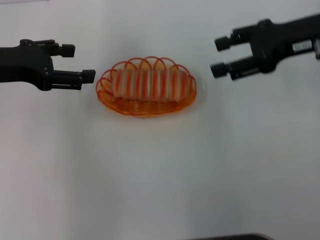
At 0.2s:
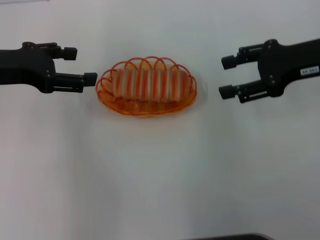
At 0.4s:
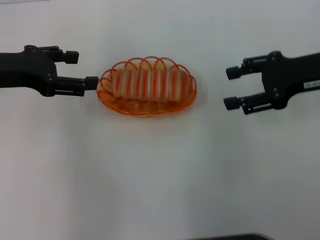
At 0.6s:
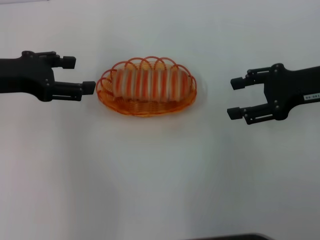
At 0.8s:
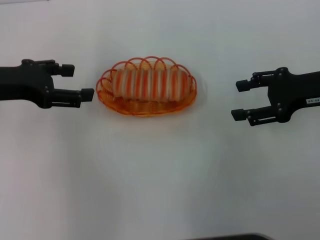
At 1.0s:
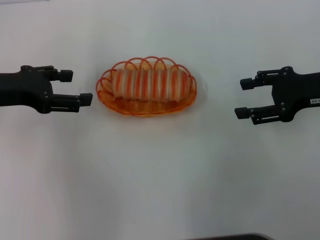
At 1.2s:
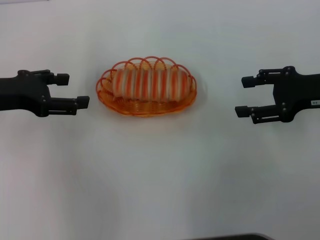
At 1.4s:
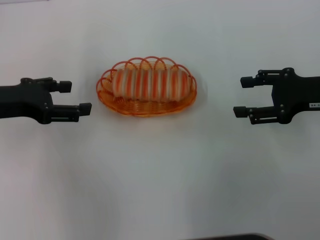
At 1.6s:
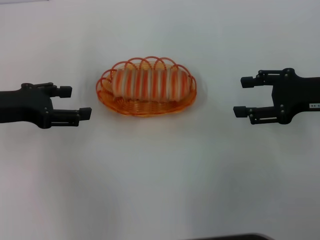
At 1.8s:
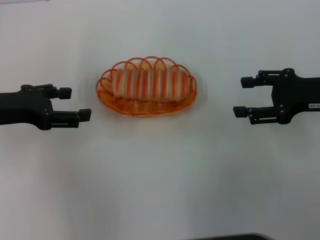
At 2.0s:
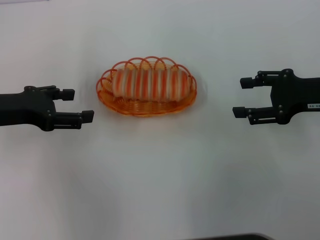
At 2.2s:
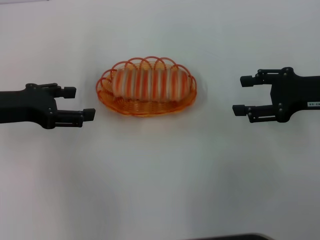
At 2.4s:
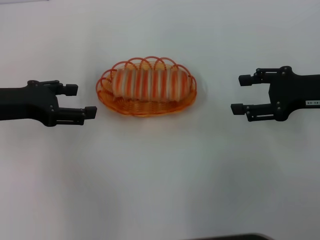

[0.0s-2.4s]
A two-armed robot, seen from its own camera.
0.0s to 1.2s: The right gripper goes roughly 10 cm downward and backward.
1.2s to 2.4s: The grippers make only small movements.

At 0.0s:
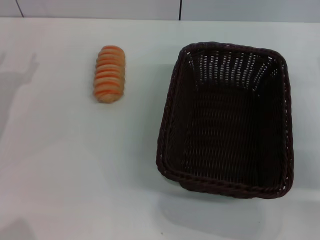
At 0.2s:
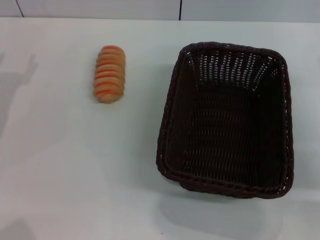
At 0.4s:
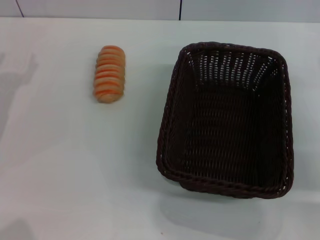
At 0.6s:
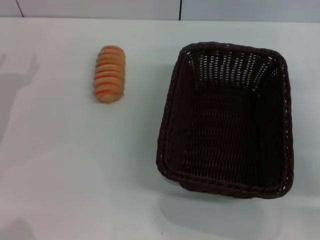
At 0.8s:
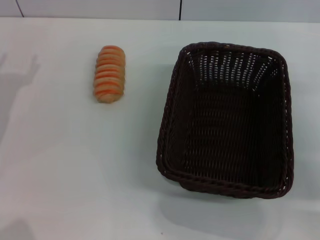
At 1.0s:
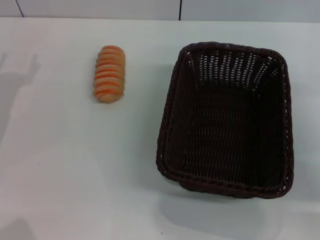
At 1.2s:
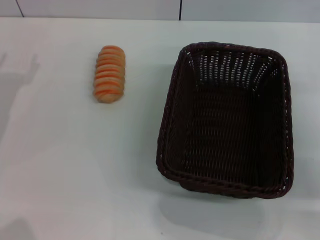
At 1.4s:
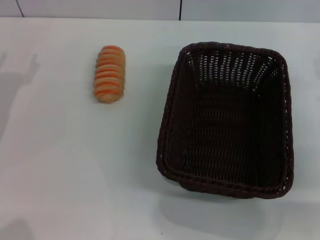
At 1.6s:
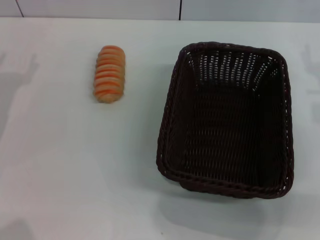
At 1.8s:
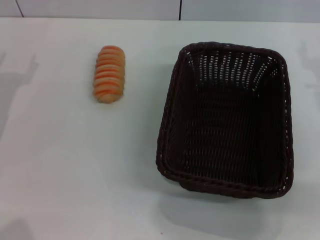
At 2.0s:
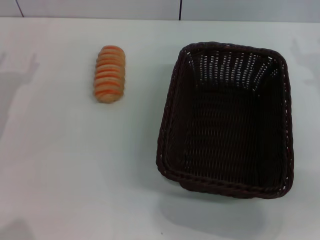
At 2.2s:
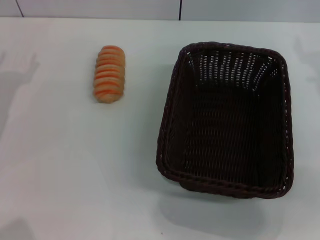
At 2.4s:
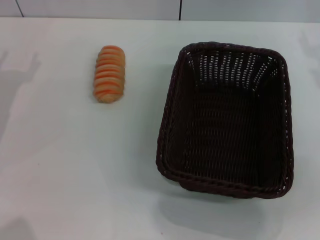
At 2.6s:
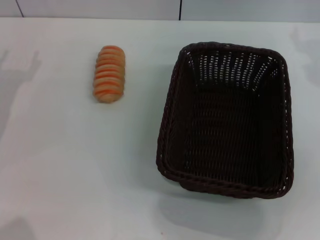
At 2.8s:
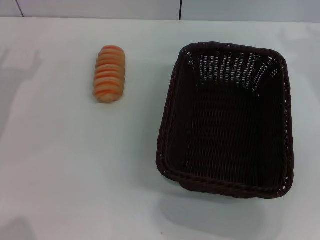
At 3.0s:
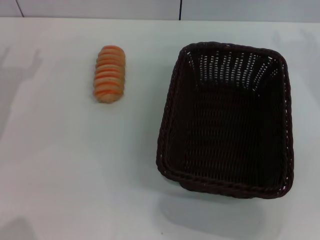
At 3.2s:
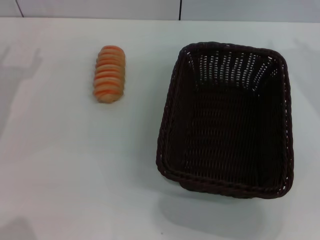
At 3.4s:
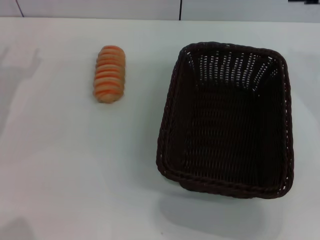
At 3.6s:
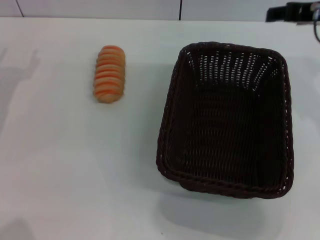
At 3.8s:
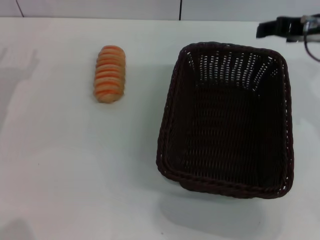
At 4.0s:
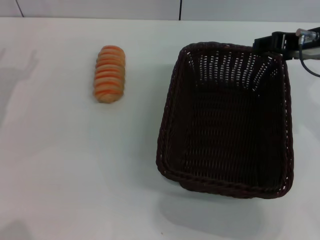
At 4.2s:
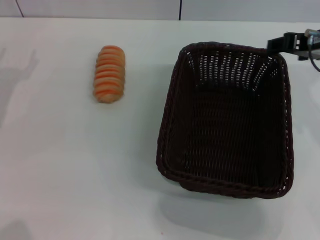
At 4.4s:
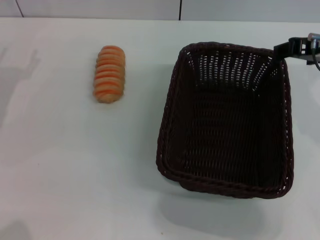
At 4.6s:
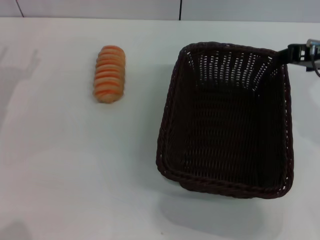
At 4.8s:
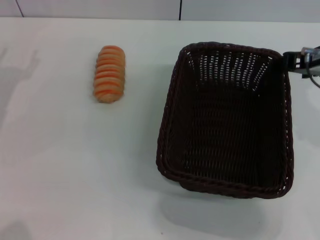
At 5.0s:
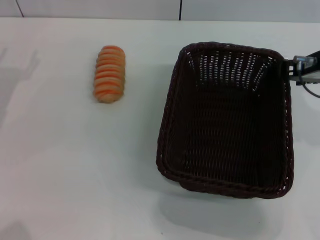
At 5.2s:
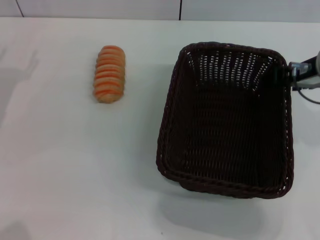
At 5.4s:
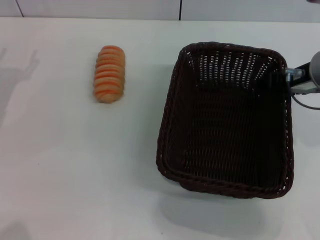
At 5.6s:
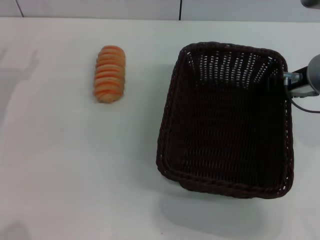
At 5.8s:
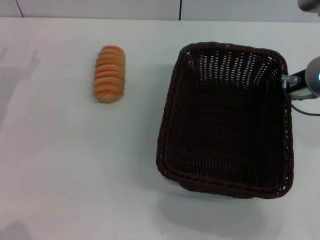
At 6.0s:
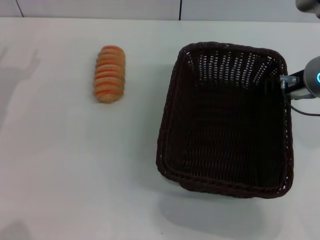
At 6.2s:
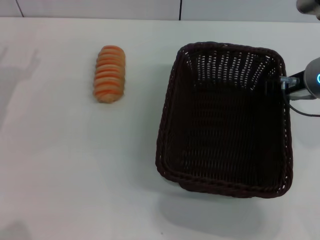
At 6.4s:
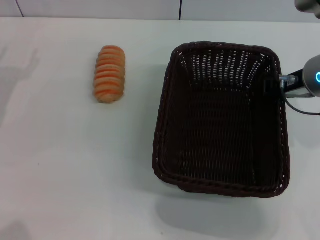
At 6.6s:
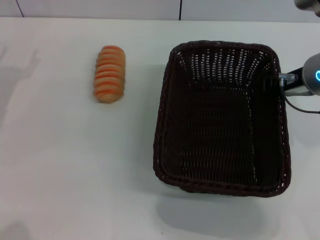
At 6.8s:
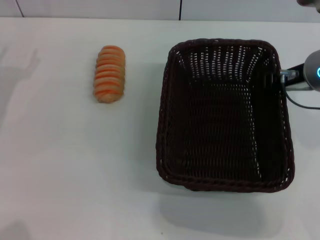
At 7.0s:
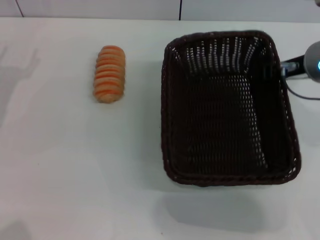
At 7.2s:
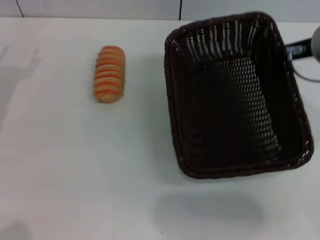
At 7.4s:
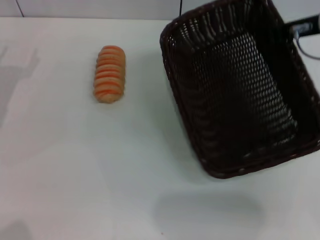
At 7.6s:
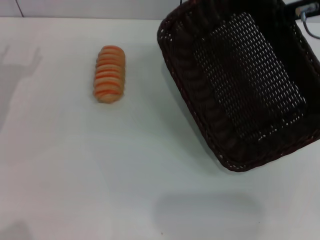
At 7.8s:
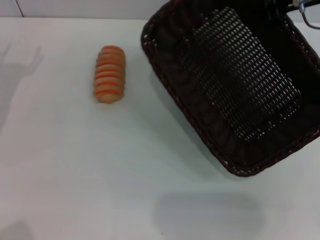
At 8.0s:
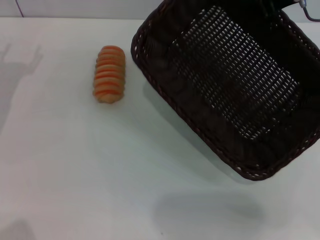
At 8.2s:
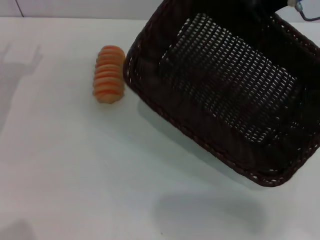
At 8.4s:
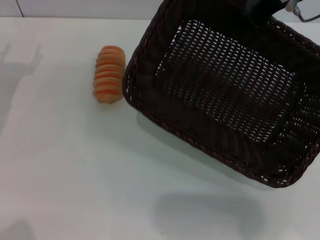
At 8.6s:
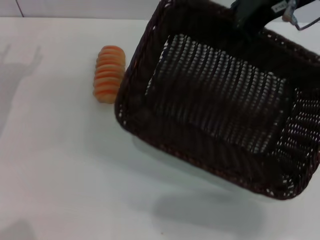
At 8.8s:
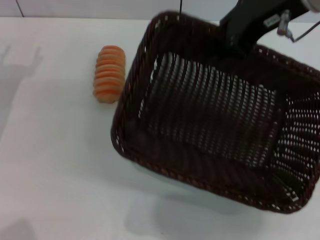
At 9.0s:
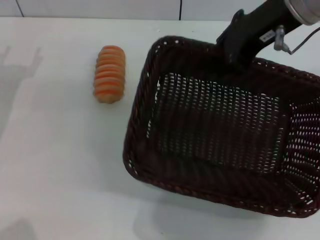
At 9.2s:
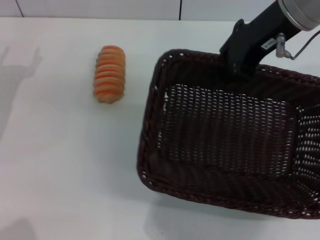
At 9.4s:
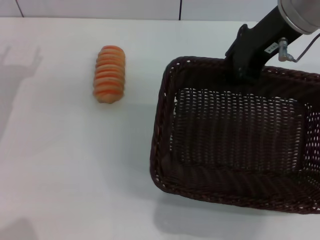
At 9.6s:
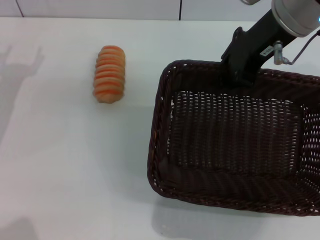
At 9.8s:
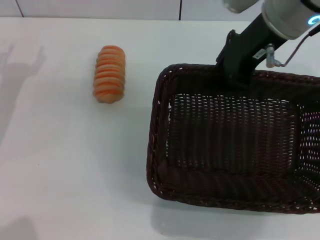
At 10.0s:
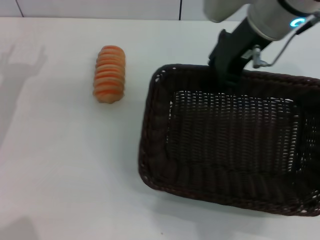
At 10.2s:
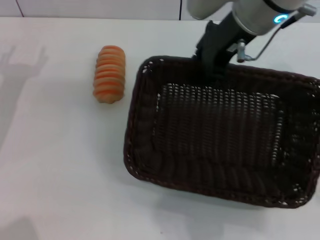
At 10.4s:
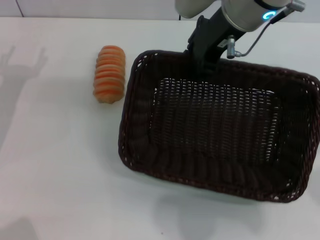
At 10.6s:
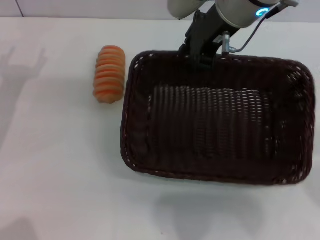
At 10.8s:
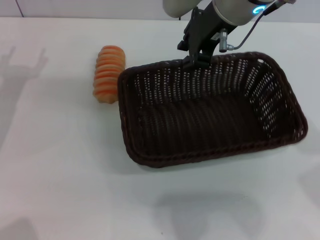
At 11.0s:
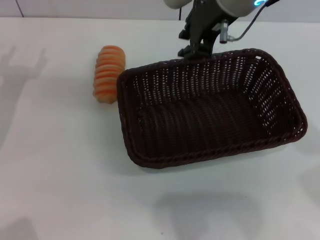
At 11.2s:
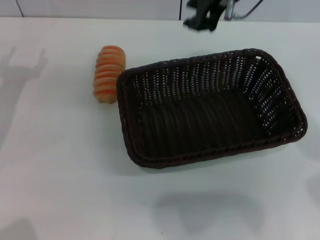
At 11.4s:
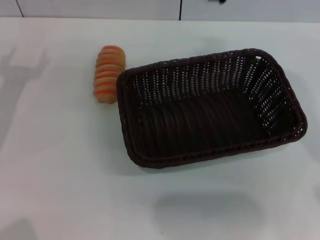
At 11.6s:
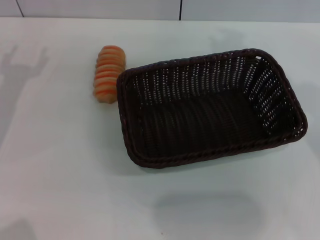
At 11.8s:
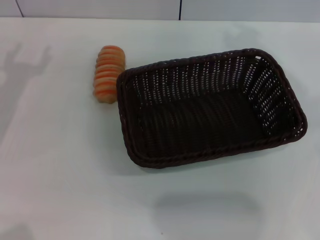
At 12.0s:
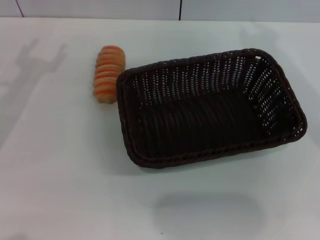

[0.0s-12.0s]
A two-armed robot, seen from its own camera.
Step, 0.0s to 8.0s: Pick up the dark basket with the right gripper.
Step, 8.4s to 11.4s: Place the dark basket in the center of view with the right gripper.
0.0s to 1.6s: The grippers make only small movements.
1.6s to 3.0s: The right gripper shifts approximately 15 cm upward and forward.
3.0s to 4.4s: The right gripper shifts by about 5 cm.
4.4s to 6.0s: The right gripper goes some 5 cm downward.
6.0s to 7.6s: The right gripper travels upward by roughly 5 cm, and closes up.
7.6s to 9.0s: The right gripper heads to the left, covering roughly 5 cm.
9.0s to 10.4s: The right gripper travels to the left by some 5 cm.
10.4s to 12.0s: The right gripper travels to the right by some 10 cm.

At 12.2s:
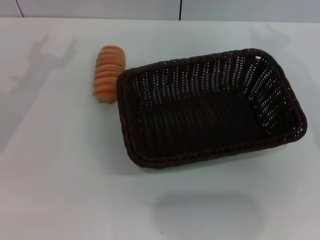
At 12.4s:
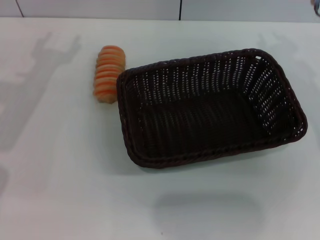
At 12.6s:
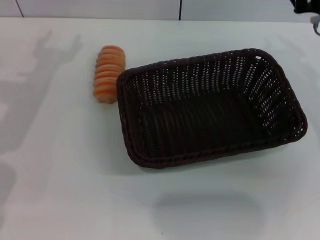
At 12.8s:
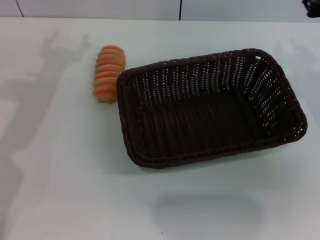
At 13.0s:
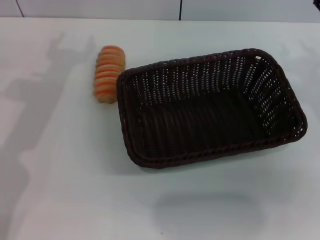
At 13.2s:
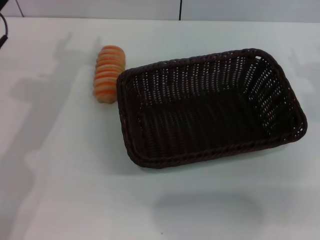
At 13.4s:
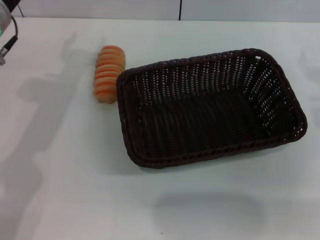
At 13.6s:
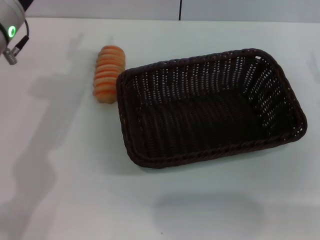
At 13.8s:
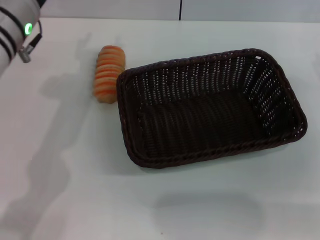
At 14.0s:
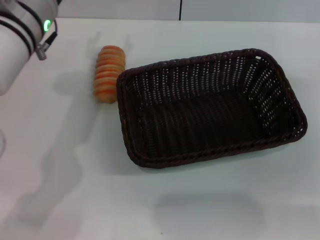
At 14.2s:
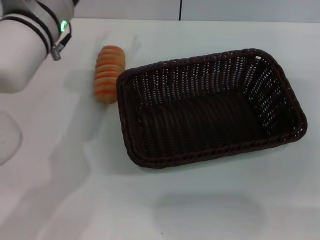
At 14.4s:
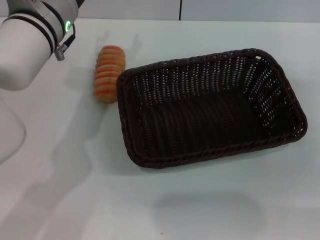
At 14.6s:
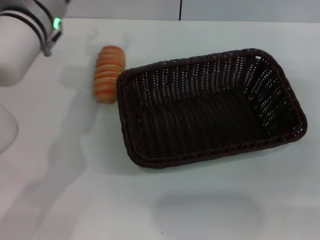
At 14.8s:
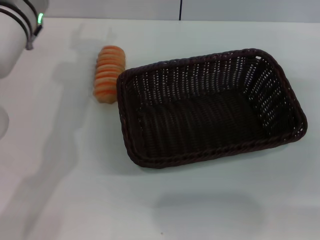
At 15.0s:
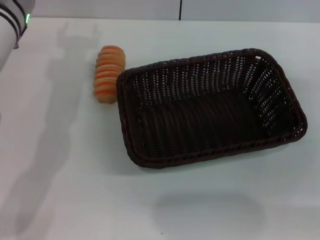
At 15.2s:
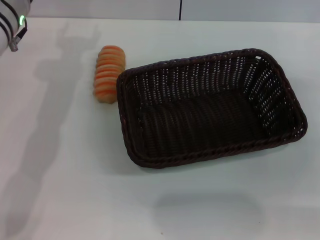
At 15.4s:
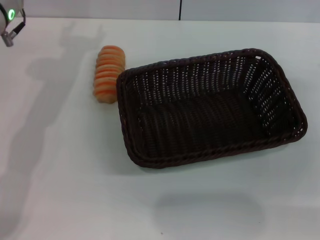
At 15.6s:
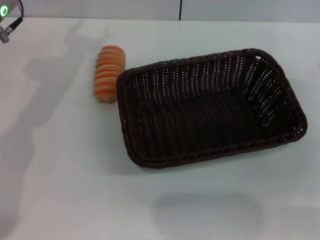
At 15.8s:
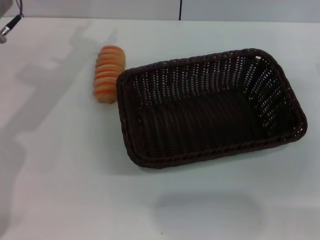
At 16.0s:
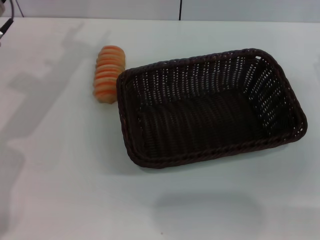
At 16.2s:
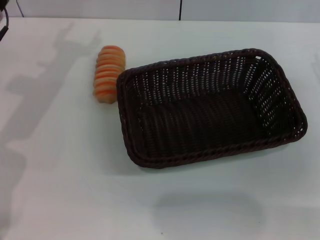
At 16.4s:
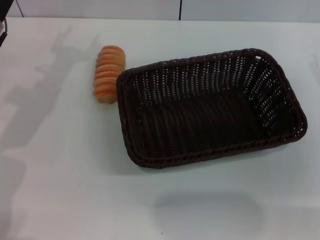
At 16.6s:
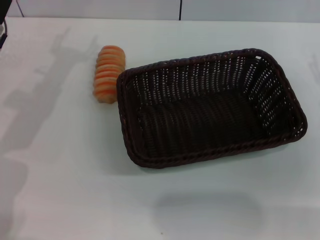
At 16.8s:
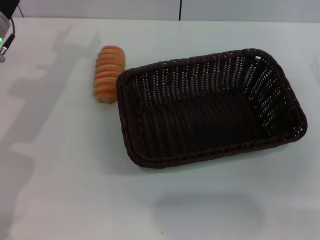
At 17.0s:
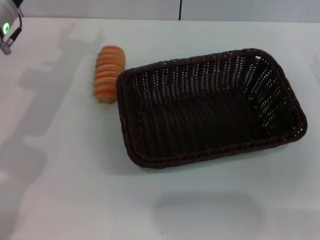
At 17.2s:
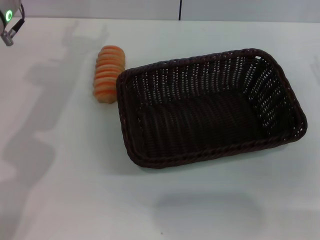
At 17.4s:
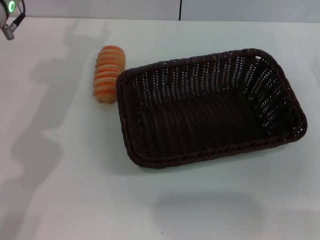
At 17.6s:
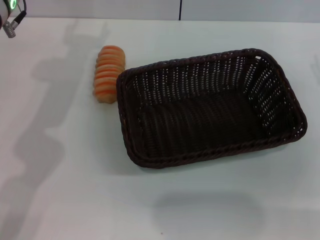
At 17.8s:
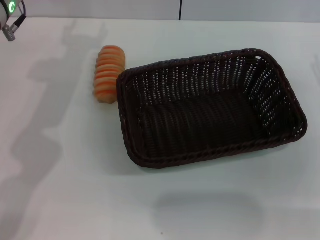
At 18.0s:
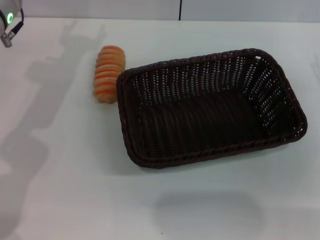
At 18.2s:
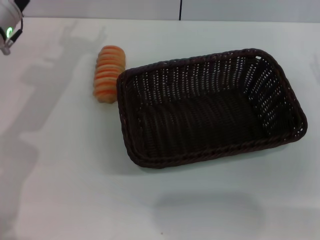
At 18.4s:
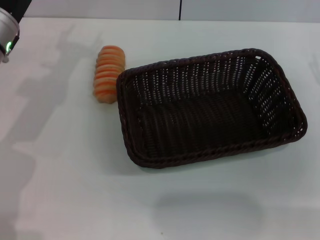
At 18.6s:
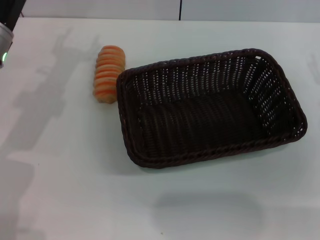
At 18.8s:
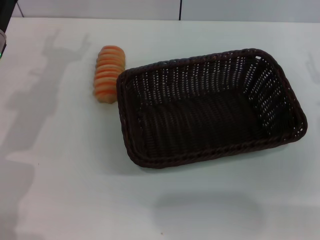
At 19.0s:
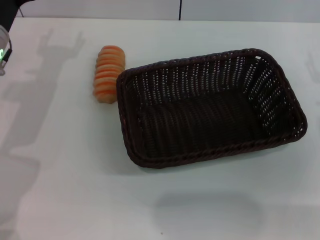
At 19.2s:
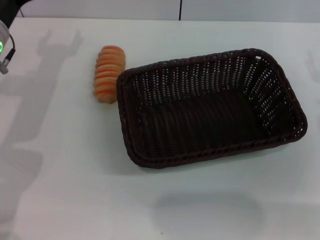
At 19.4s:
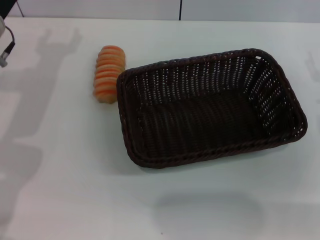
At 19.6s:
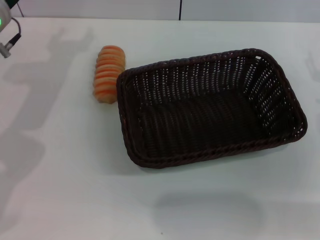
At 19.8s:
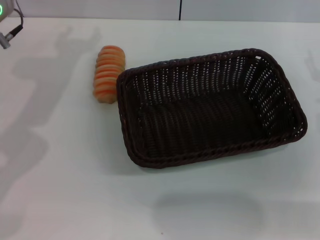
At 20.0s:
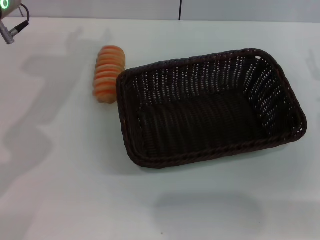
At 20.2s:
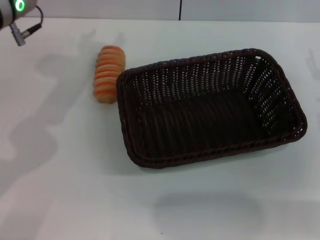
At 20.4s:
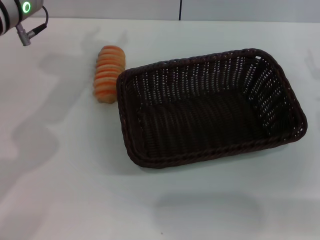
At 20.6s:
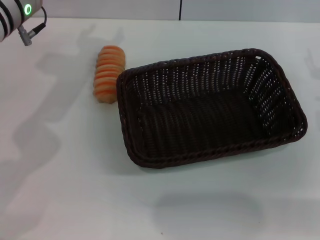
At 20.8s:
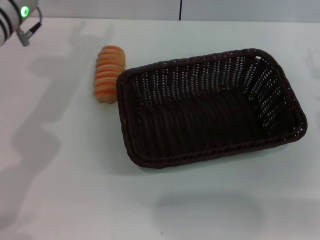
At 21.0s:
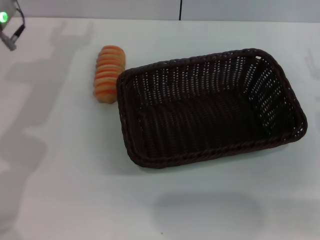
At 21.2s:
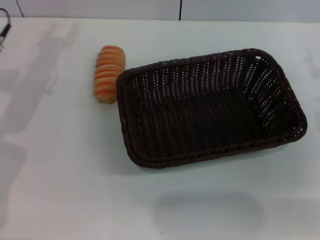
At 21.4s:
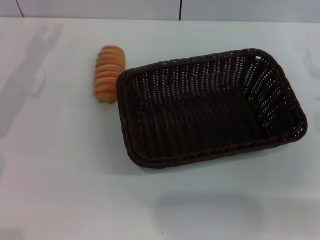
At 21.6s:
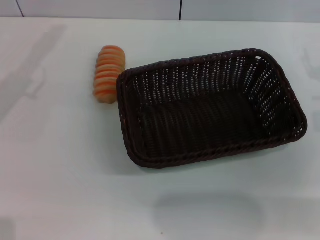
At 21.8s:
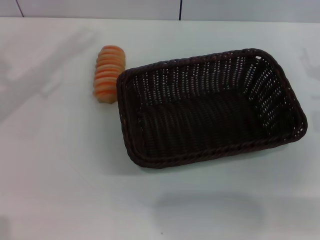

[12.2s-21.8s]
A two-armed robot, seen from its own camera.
12.2s to 13.8s: The left gripper travels to the right and upward by some 10 cm.
13.8s to 15.4s: The left gripper shifts some 5 cm forward.
17.0s to 18.6s: The left gripper changes place by approximately 5 cm.
18.6s to 20.2s: The left gripper is displaced upward by some 10 cm.
20.2s to 21.8s: The left gripper moves to the left, approximately 10 cm.
